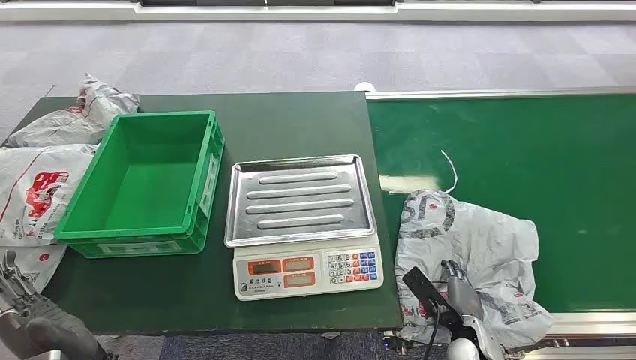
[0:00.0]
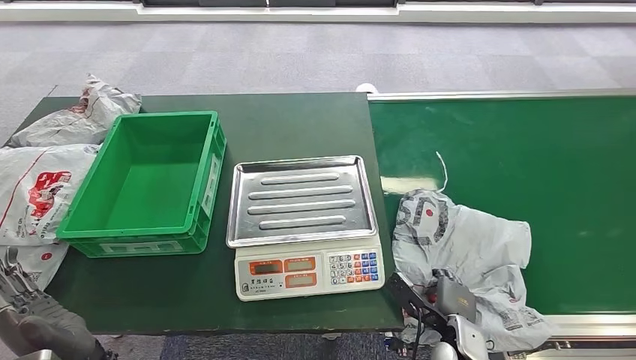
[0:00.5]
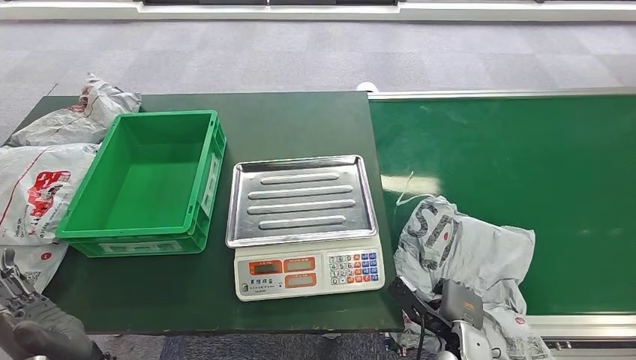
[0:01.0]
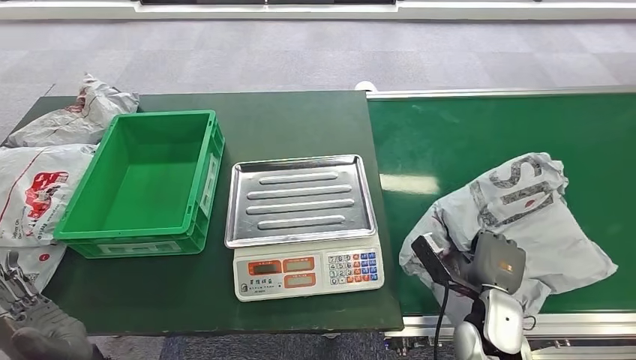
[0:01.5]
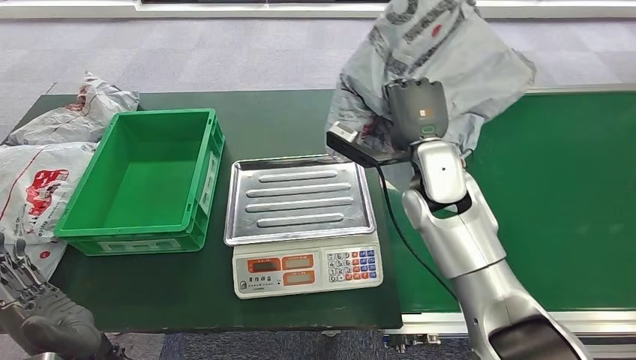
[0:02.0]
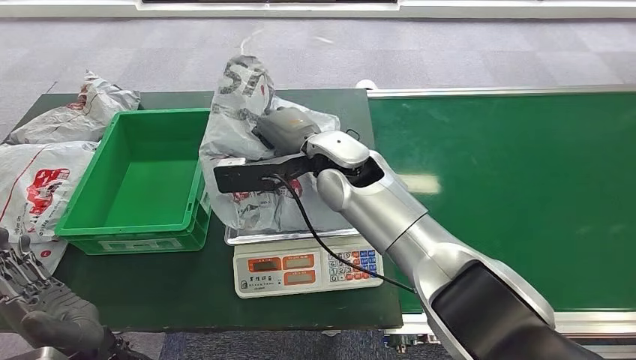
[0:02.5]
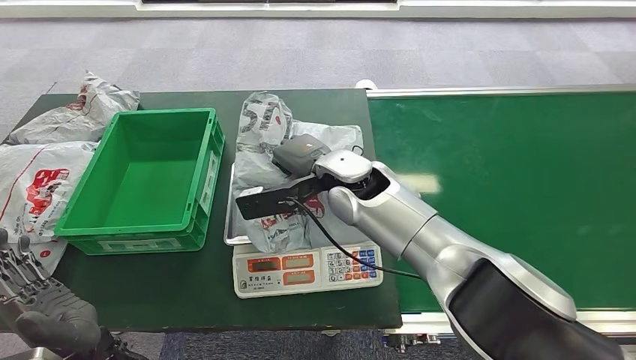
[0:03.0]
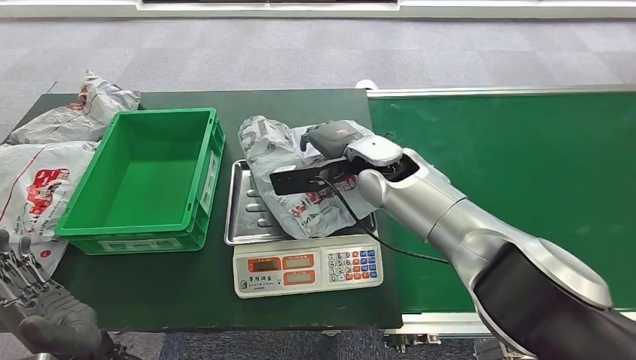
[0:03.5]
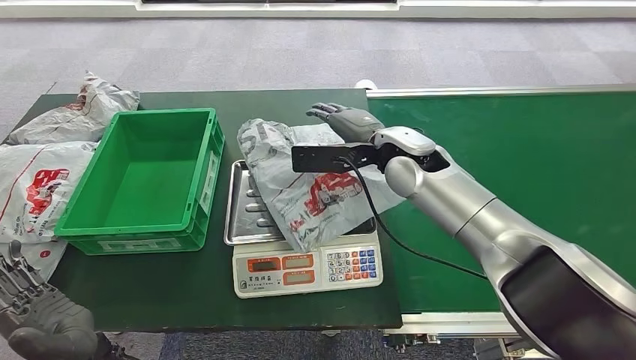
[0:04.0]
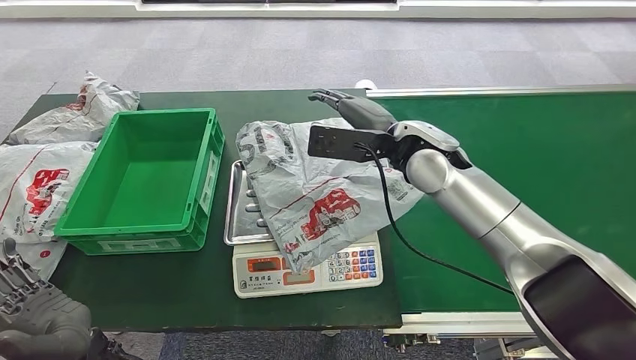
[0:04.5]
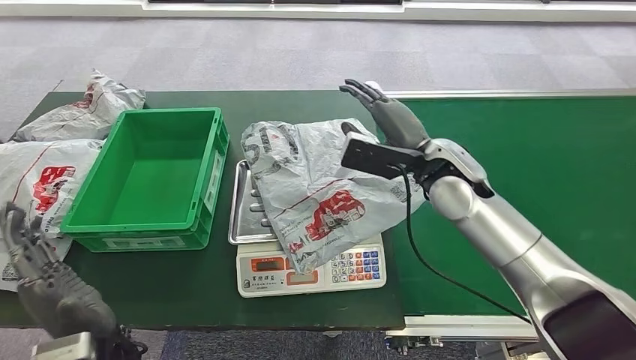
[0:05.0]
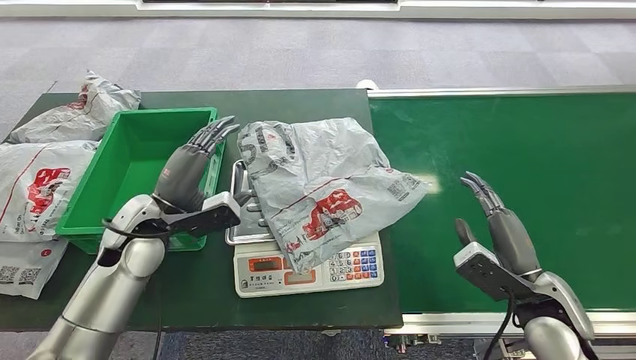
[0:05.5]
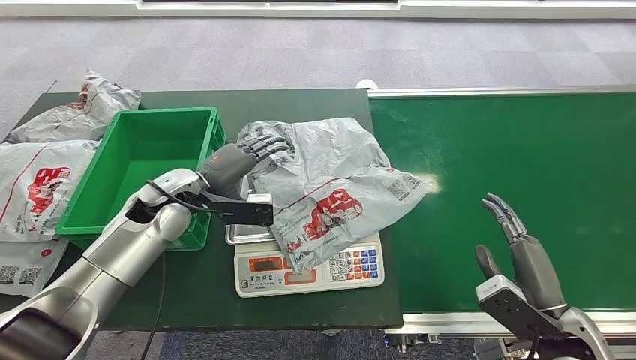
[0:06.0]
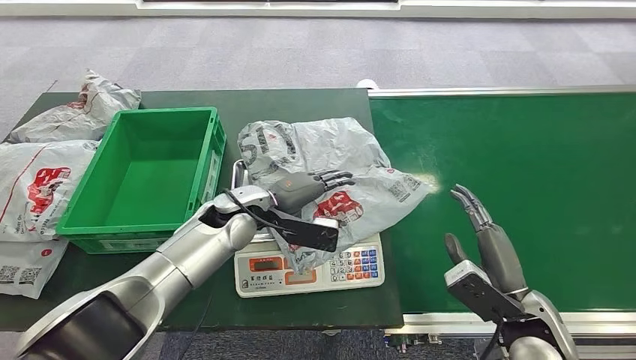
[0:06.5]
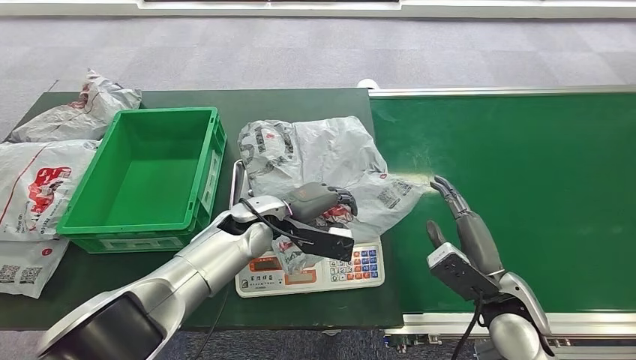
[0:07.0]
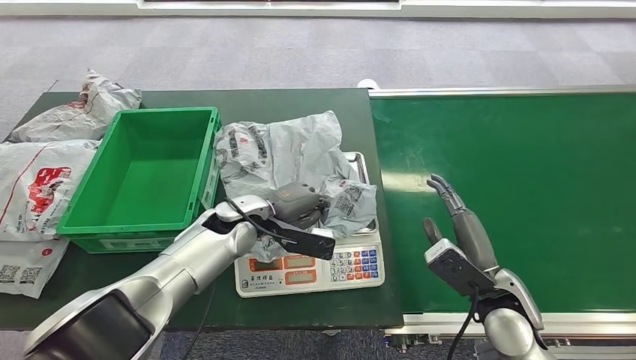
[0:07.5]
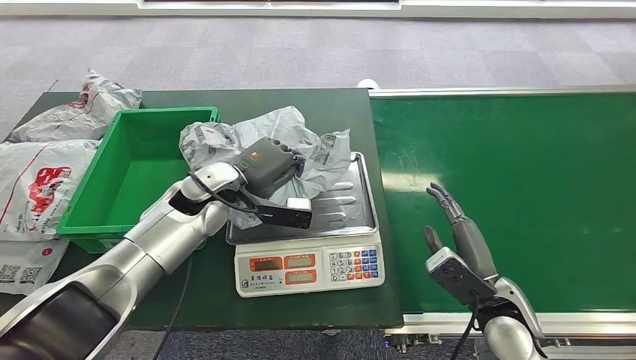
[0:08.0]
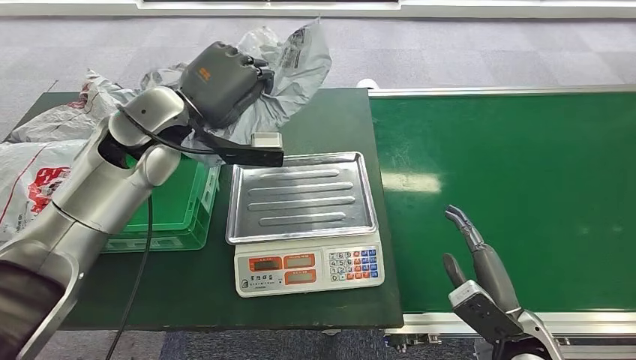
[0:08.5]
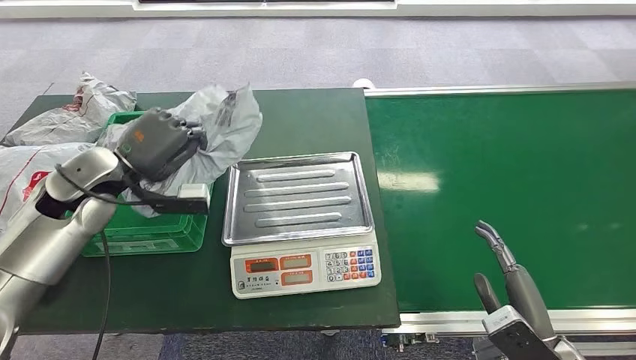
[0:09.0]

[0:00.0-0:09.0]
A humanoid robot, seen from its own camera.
Task of the whole recording: Weigh the package on the weighing device and place it in the left basket.
Step, 0:00.0 to 0:01.5: Pick up the package from the conveyor belt.
Step, 0:02.0 to 0:04.5: Place the package onto the inbound machine.
Step, 0:05.0 to 0:08.0: Pick up the package from the inbound machine.

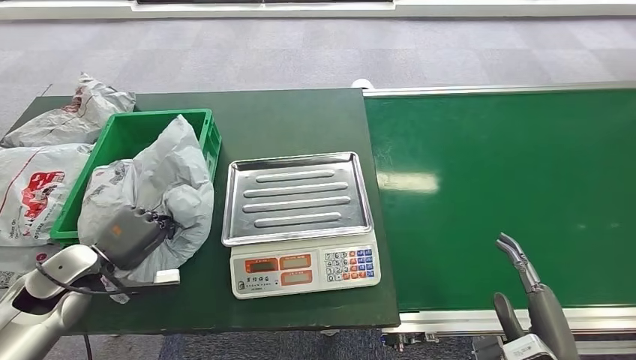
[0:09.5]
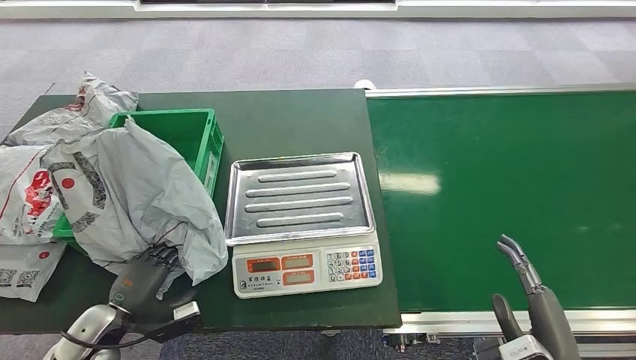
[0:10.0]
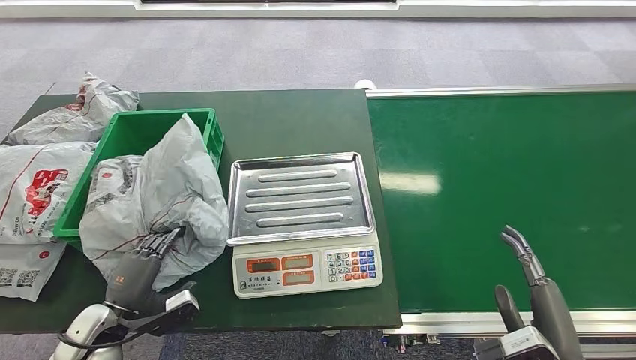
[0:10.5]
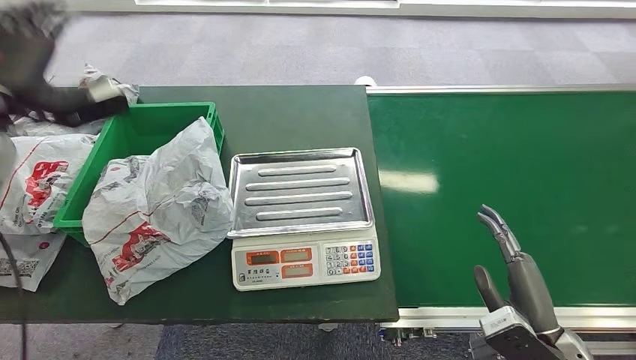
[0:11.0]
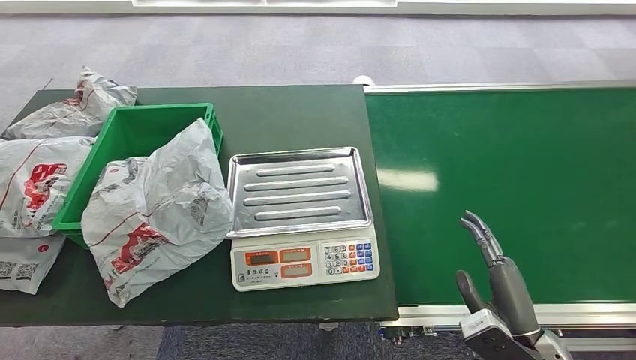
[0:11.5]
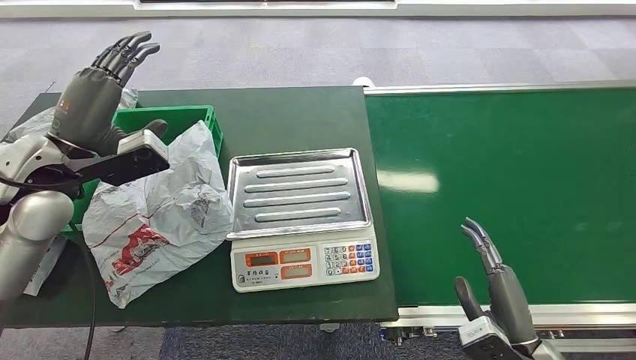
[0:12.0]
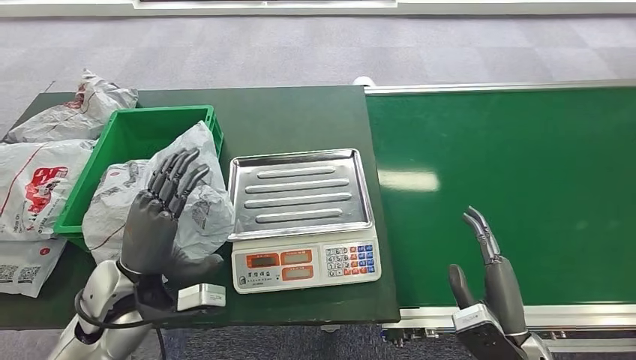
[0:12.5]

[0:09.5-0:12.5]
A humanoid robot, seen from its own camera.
Task of the whole recording: Weigh the package on the weighing device and place it in the left basket.
Step, 0:09.5 to 0:12.5: Place the package into the parcel locker.
